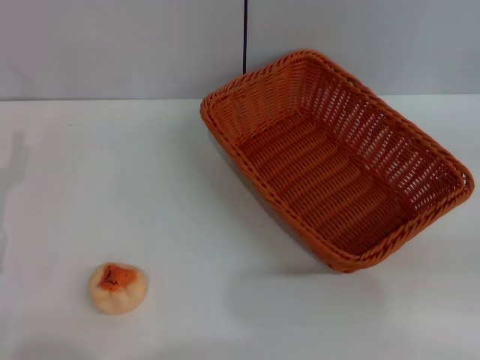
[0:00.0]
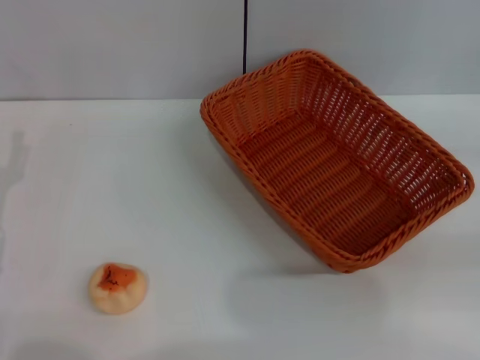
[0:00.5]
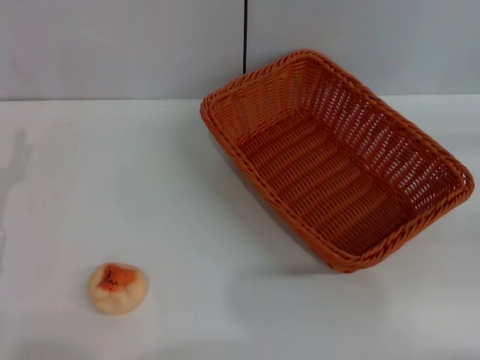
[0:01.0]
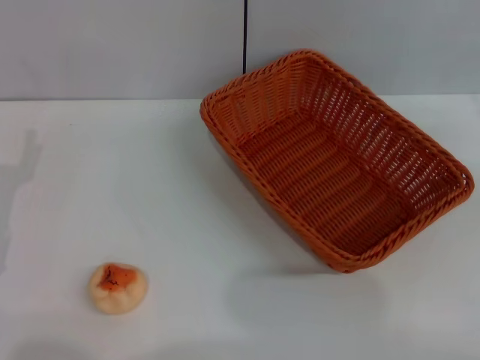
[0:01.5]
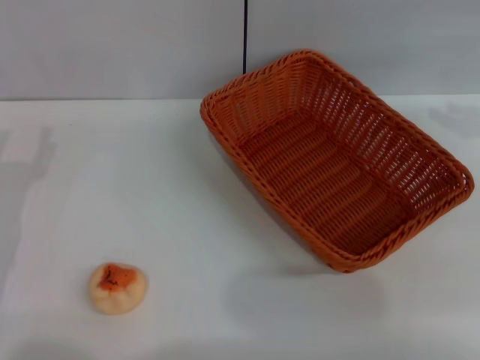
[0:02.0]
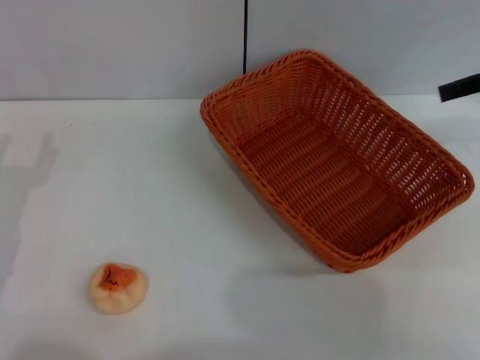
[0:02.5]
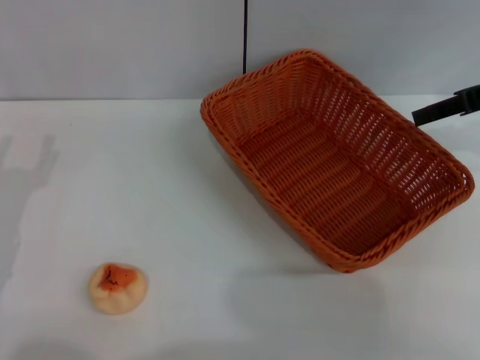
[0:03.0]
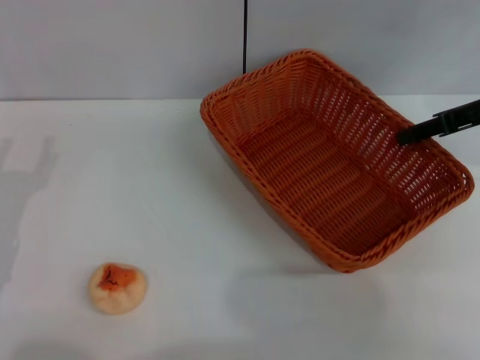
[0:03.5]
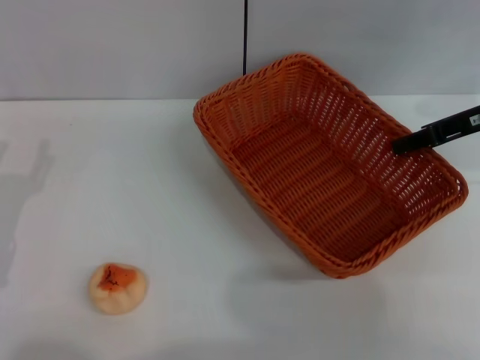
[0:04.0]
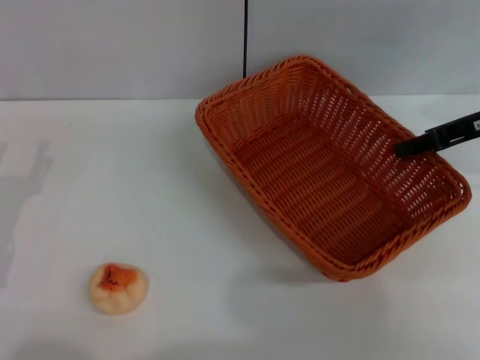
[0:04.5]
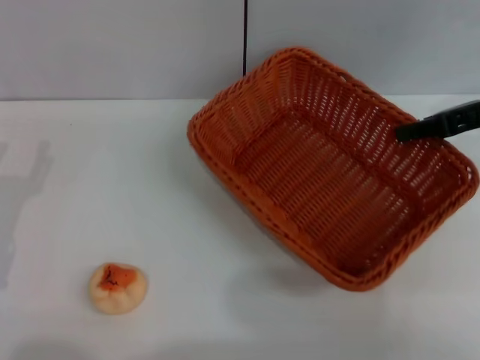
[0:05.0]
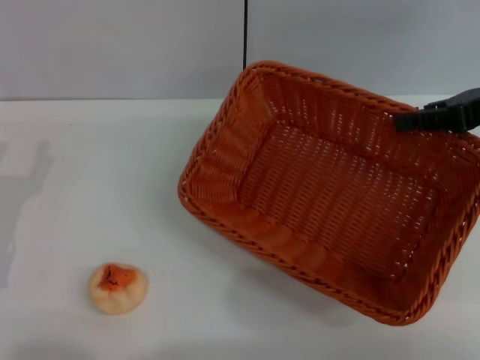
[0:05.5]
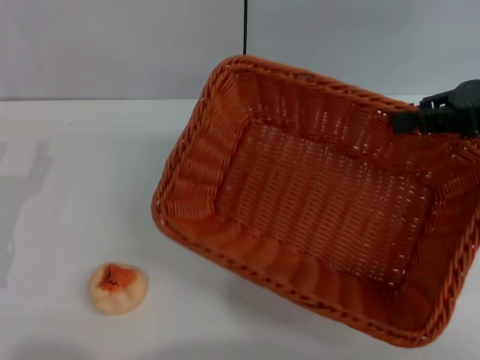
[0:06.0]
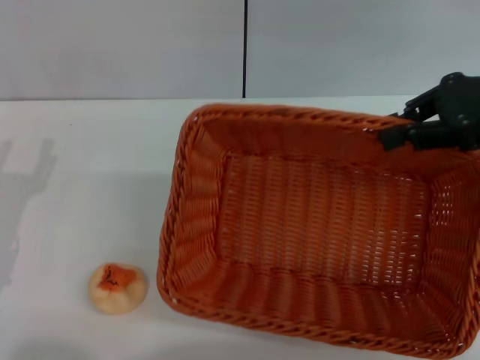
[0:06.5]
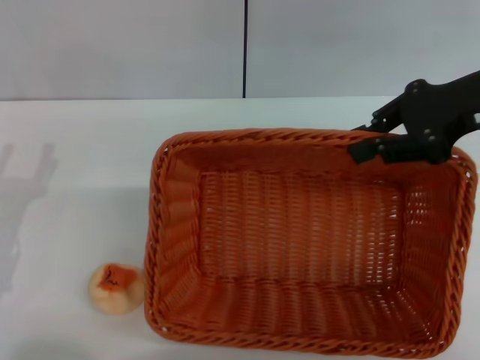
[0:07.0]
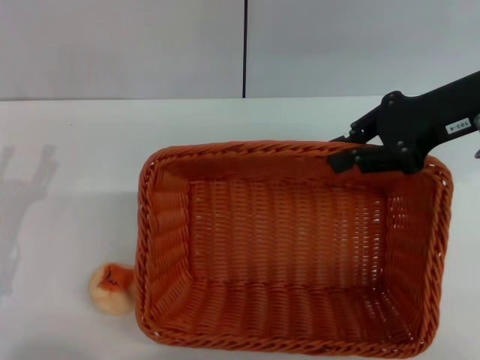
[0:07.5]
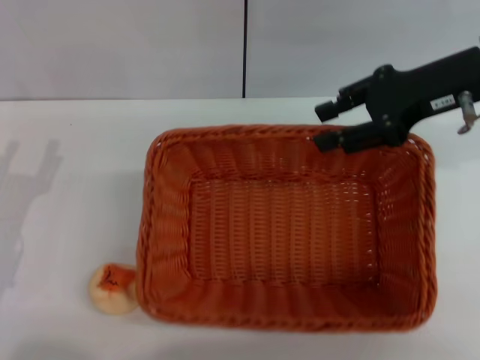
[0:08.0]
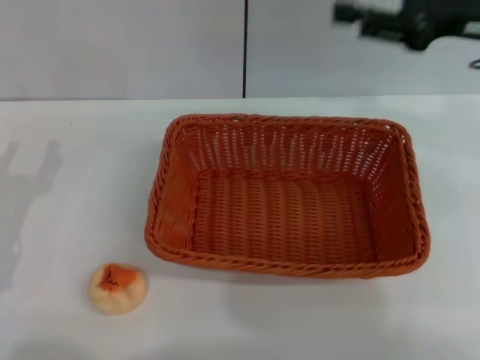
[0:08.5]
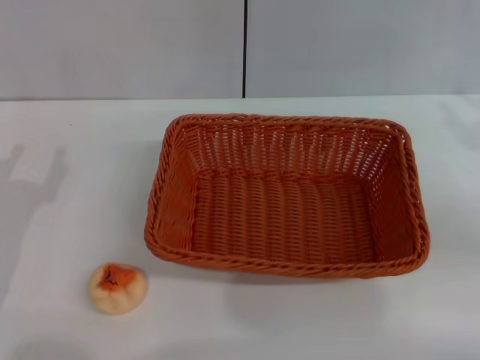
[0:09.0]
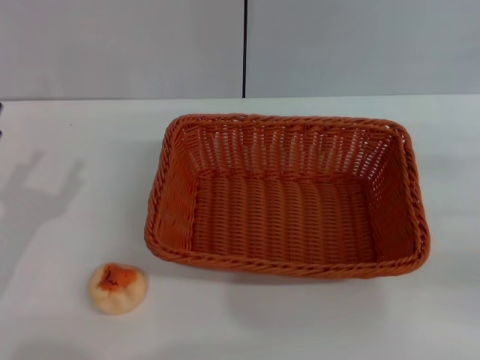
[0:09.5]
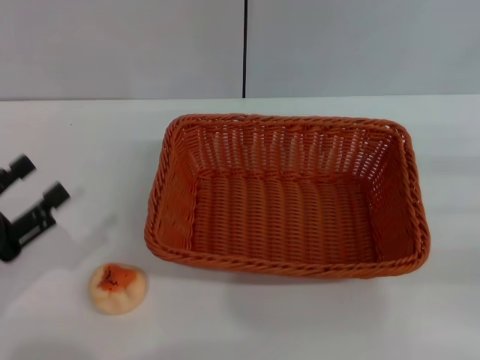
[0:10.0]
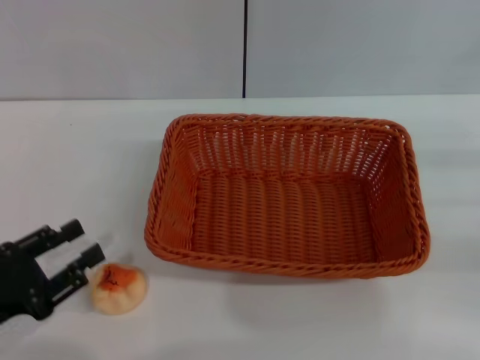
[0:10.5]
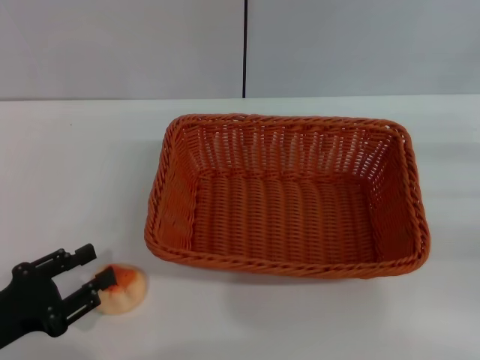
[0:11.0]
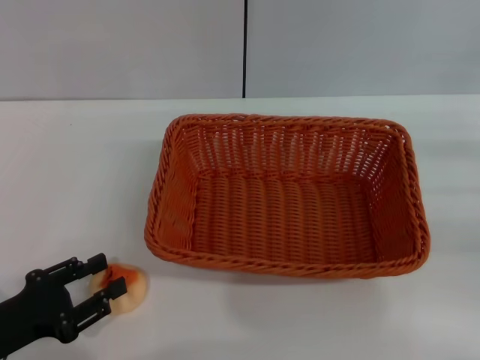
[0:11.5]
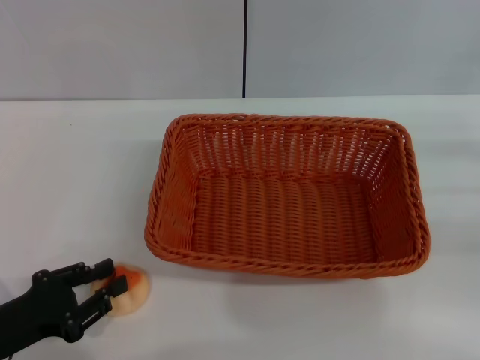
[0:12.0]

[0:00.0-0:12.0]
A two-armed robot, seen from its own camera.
Step, 0:00.0 to 0:08.0: Move the basket to the center of view with the right gripper.
0:02.0 to 0:04.0: The right gripper is displaced to the left and downward by roughly 10 cm, and closes up.
0:04.0 to 0:06.0: The right gripper ends up approximately 5 cm from where it was.
0:06.0 to 0:08.0: The right gripper moves to the left, about 5 cm, and opens up.
0:08.0 to 0:10.0: The left gripper ends up about 5 cm from where it was. The right gripper travels to the right, backward and downward by approximately 25 cm.
0:10.0 to 0:12.0: The left gripper changes place by roughly 5 cm, and closes up.

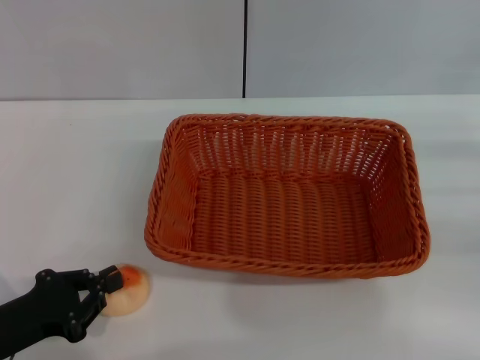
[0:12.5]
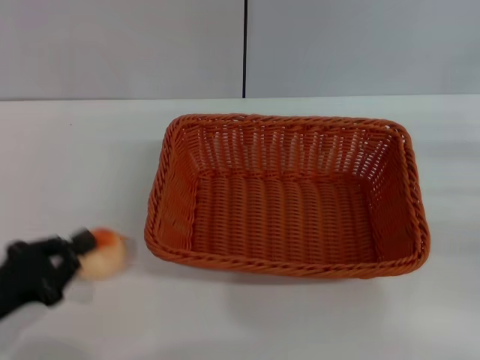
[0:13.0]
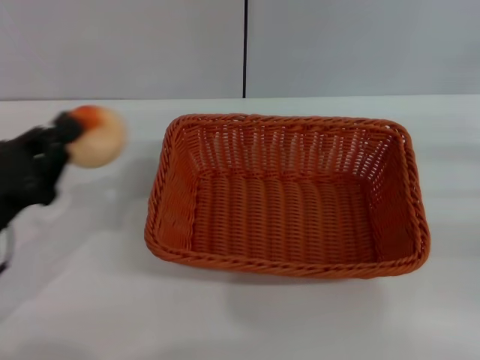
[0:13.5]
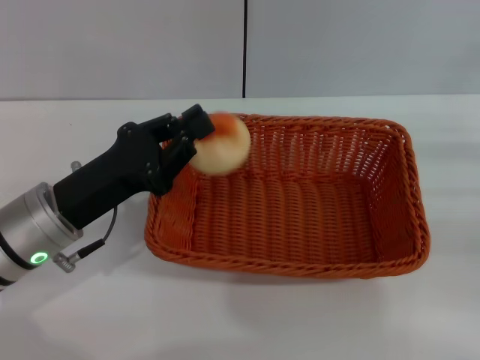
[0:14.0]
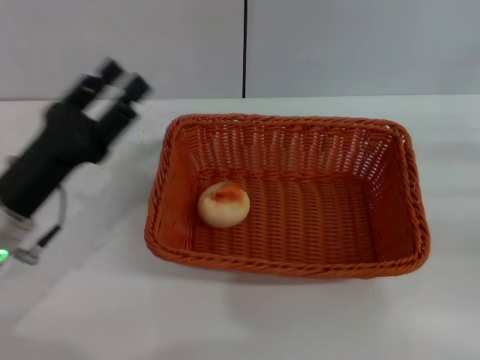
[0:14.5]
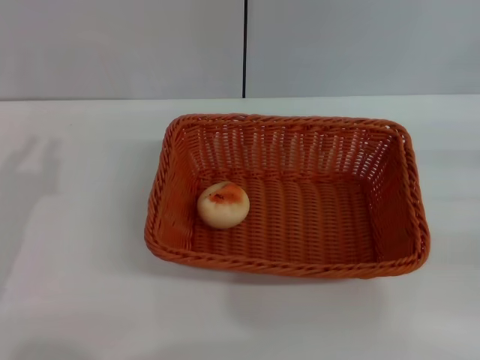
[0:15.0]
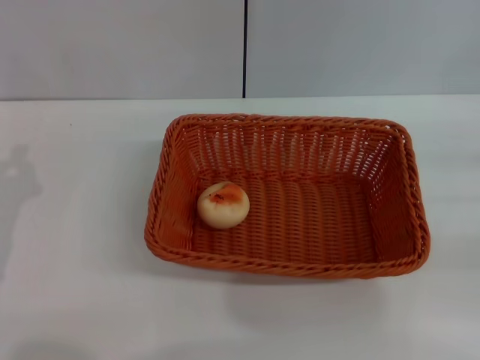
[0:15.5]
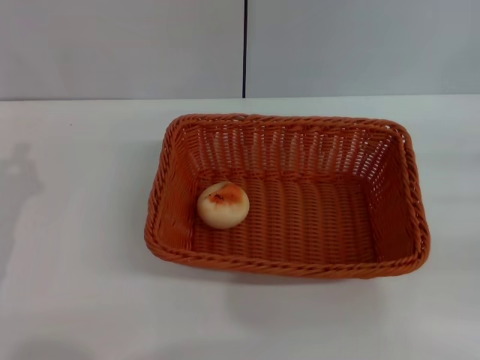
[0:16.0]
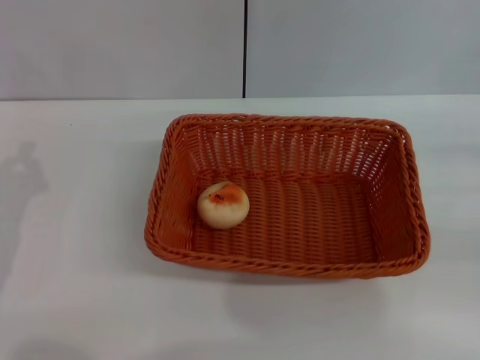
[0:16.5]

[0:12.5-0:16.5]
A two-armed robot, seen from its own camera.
Step, 0:13.5 to 0:14.0: Place the egg yolk pastry into the basket with the left gripper.
0:12.5 to 0:14.5: The left gripper goes roughly 10 cm forward, to the right and upward, and opens its fingers.
0:14.5 to 0:16.5: The left gripper shifts about 5 cm to the left, and closes up.

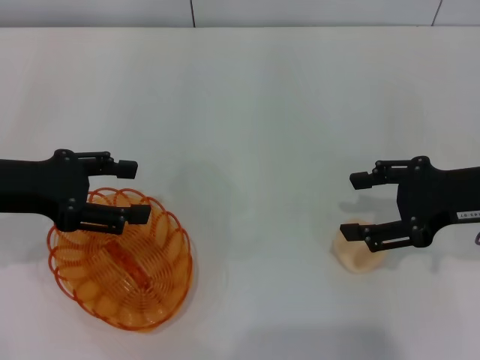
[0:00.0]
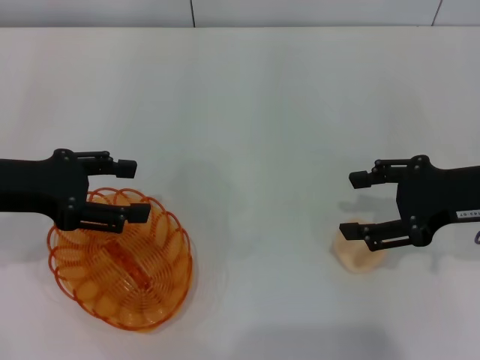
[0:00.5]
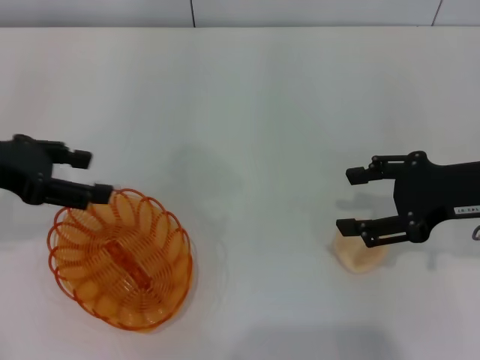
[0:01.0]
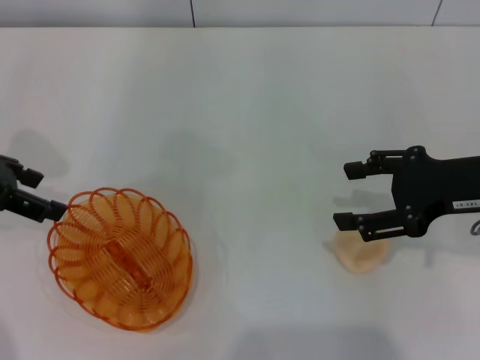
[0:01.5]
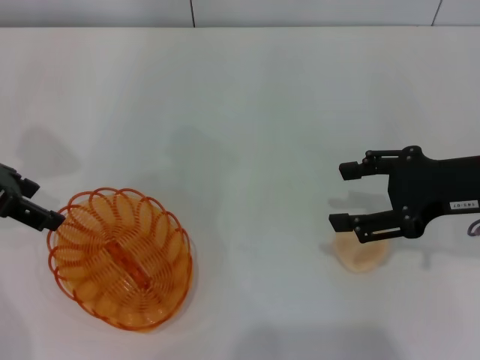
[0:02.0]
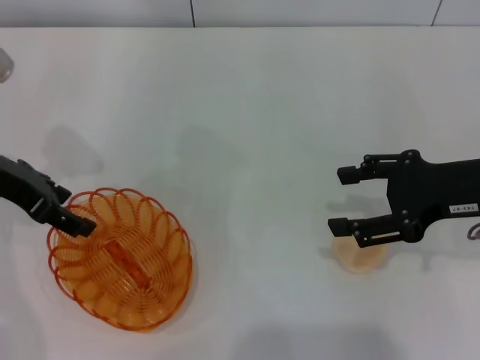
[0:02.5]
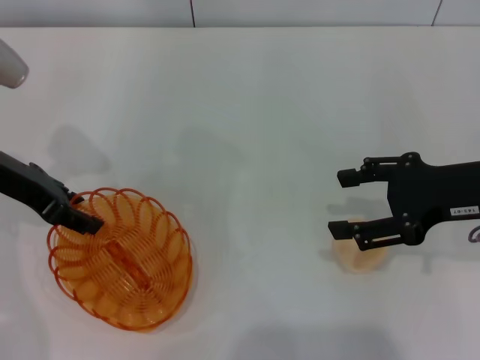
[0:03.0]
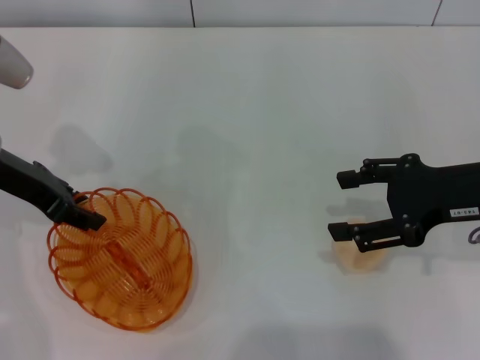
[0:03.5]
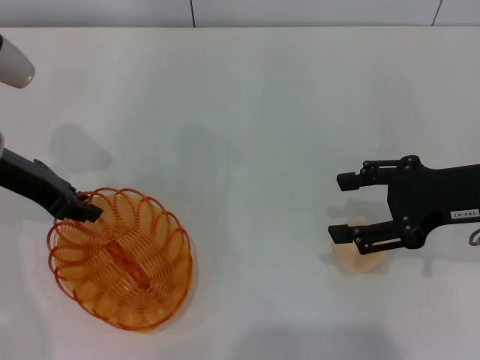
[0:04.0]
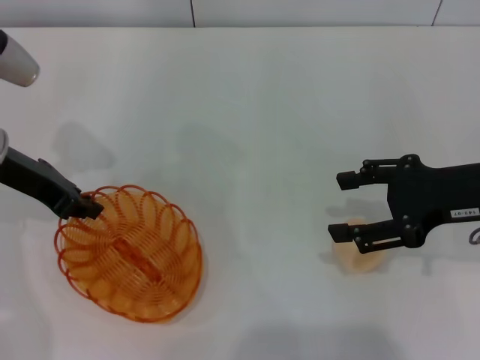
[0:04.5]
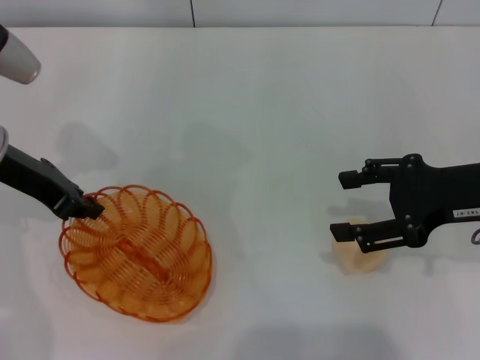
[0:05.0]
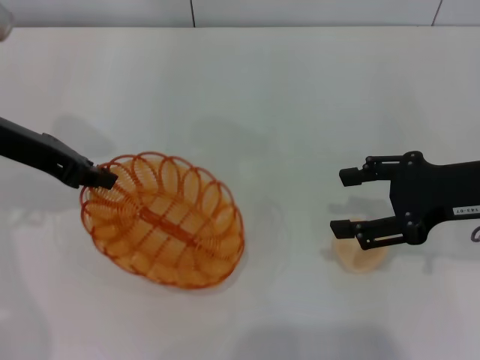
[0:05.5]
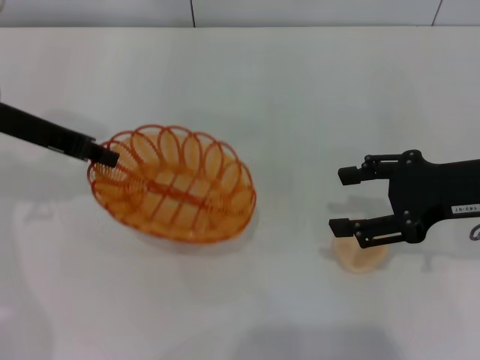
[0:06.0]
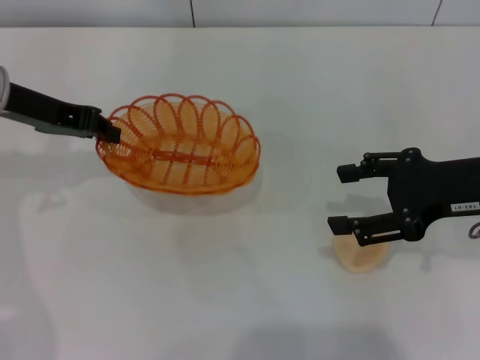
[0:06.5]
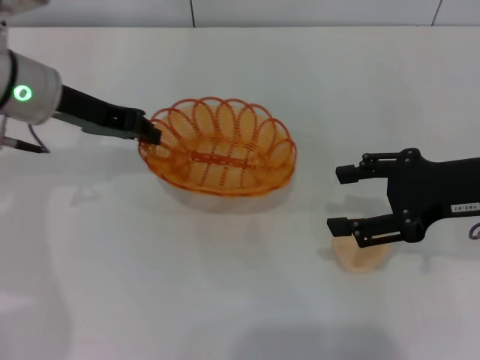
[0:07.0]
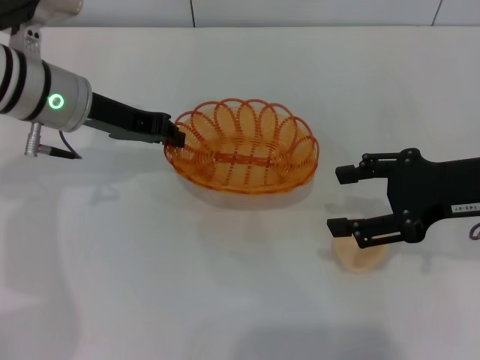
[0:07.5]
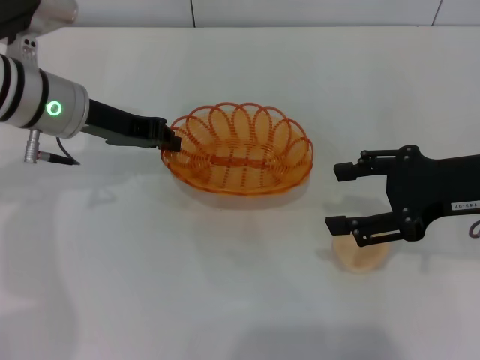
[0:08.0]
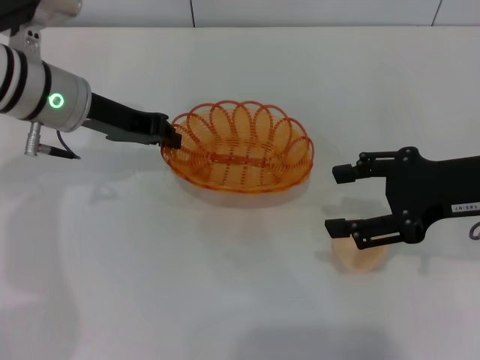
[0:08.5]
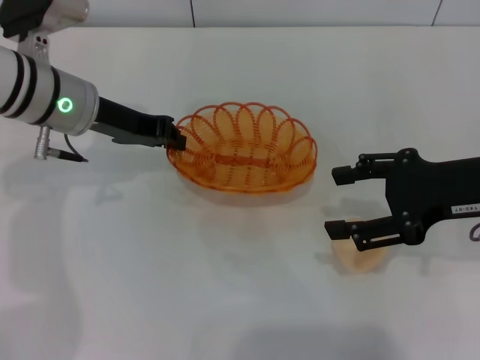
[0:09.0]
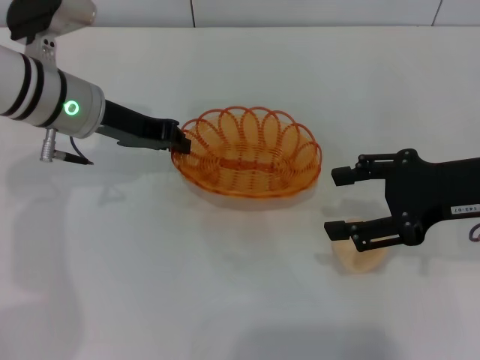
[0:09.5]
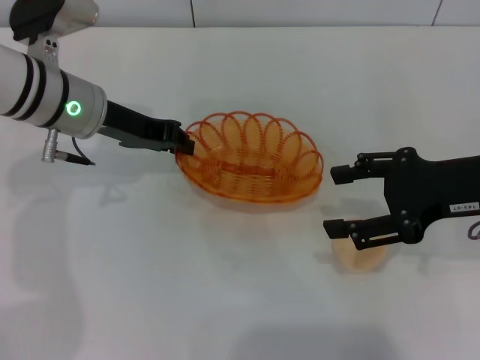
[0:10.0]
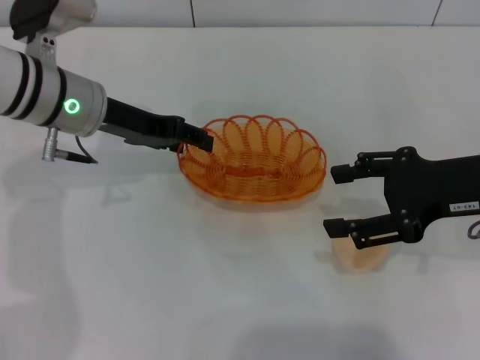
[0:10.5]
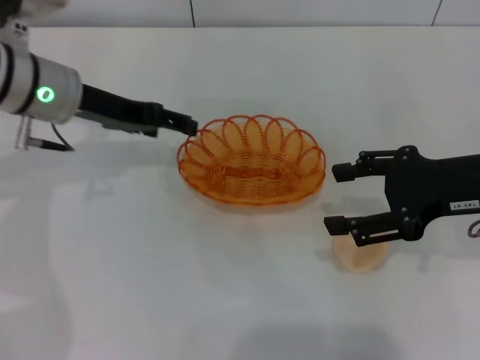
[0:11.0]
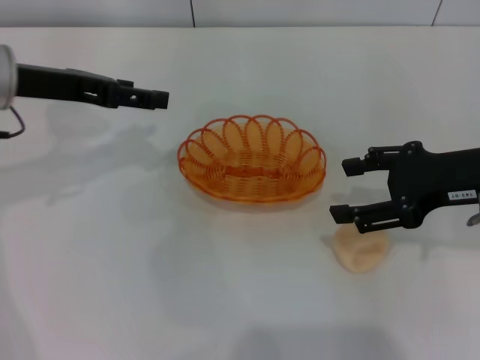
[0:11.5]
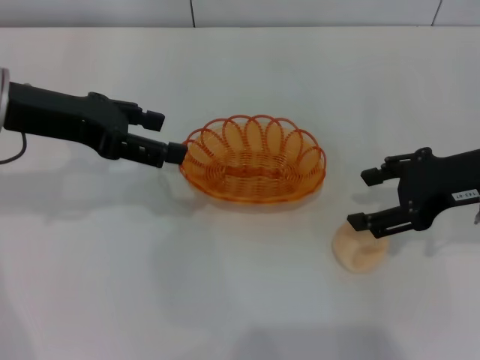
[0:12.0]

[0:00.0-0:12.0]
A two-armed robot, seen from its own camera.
Step, 0:00.0 to 0:05.0: Pick up the basket with the left gripper.
Step, 0:06.0 to 0:10.5: Place the basket in the center of view with the left gripper.
0:00.0 to 0:02.0: The left gripper ends up roughly 5 cm from where it was.
0:02.0 to 0:04.0: The left gripper changes place by about 5 cm, and closes.
0:06.0 to 0:08.0: The left gripper goes some 5 cm to the right.
0:08.0 to 0:10.0: The grippers stay close to where they were, moving slightly.
0:10.0 to 0:12.0: The left gripper travels upward, to the left and backward by about 10 cm, and opens its fingers.
